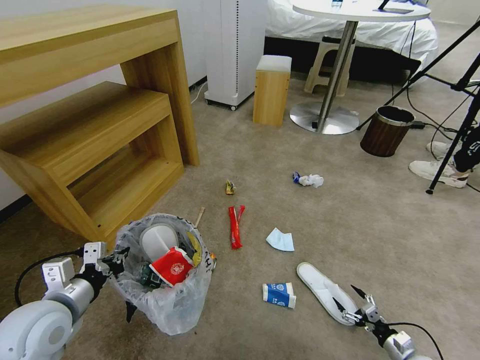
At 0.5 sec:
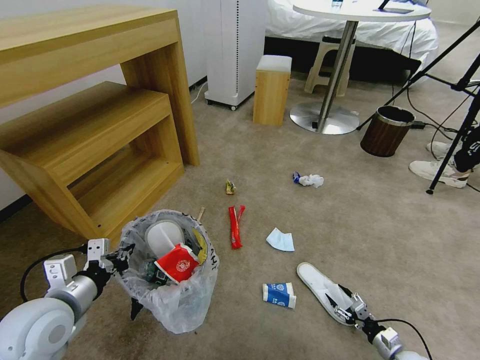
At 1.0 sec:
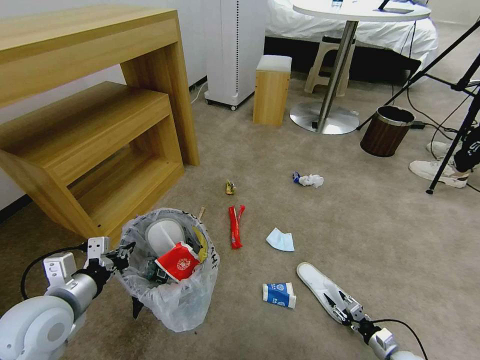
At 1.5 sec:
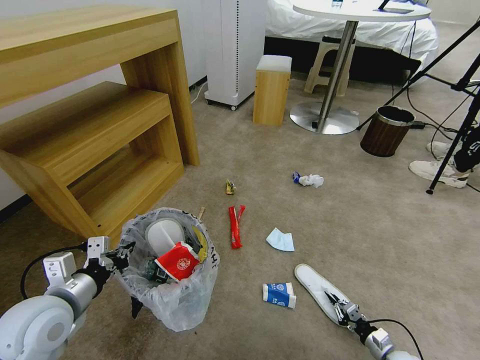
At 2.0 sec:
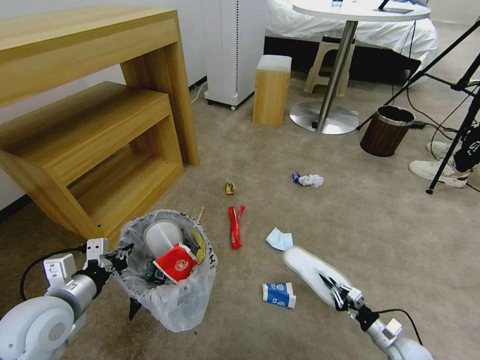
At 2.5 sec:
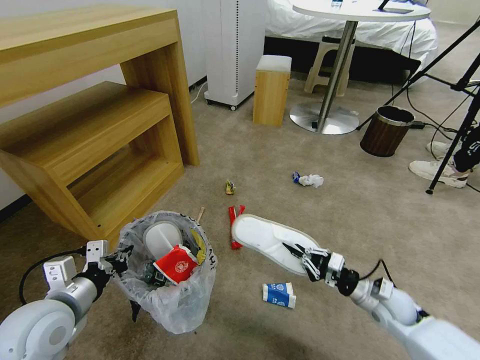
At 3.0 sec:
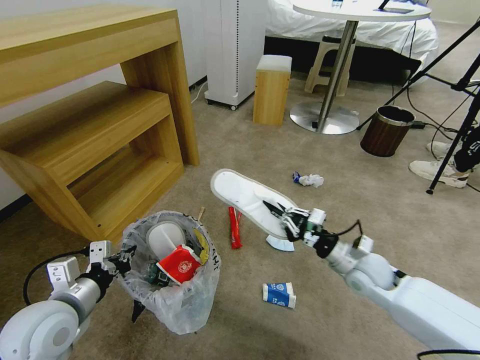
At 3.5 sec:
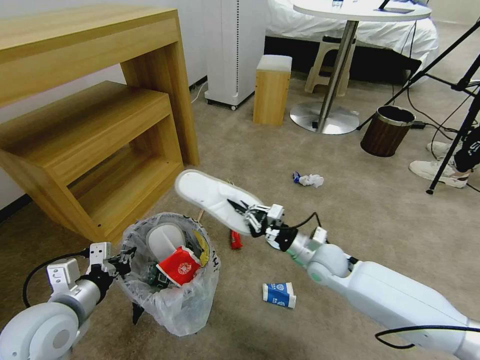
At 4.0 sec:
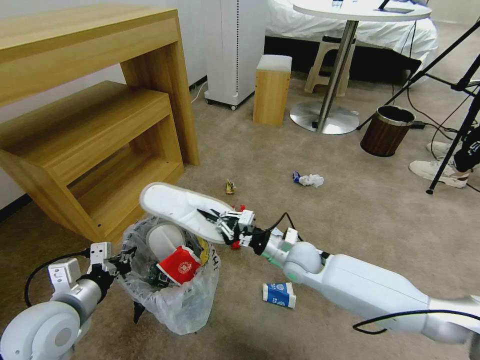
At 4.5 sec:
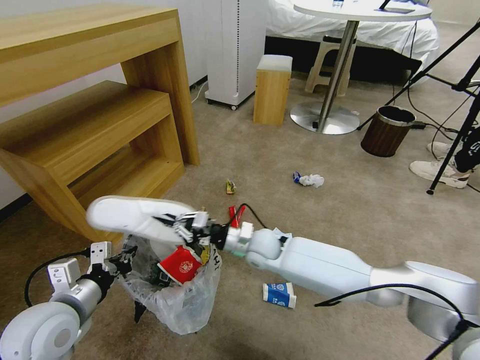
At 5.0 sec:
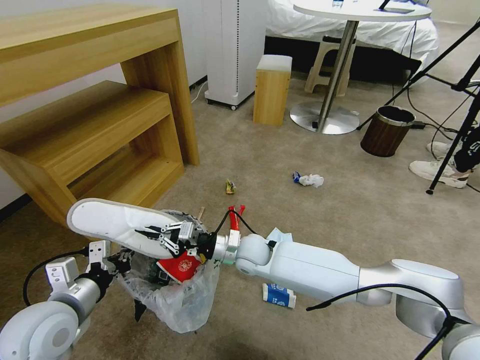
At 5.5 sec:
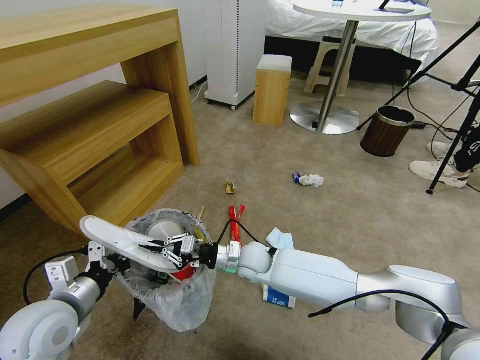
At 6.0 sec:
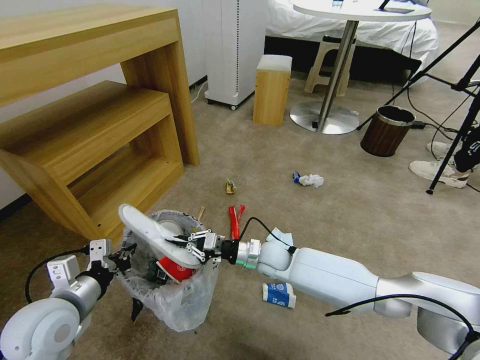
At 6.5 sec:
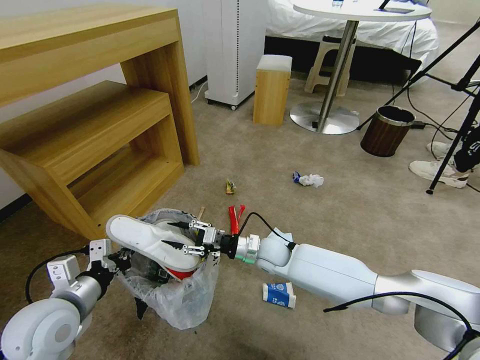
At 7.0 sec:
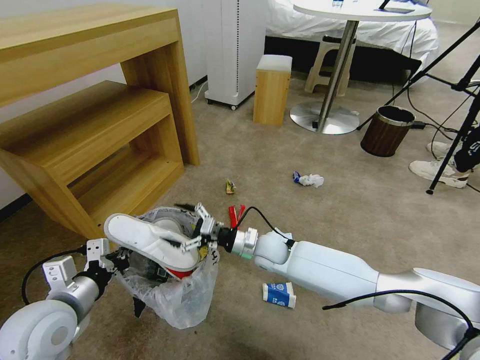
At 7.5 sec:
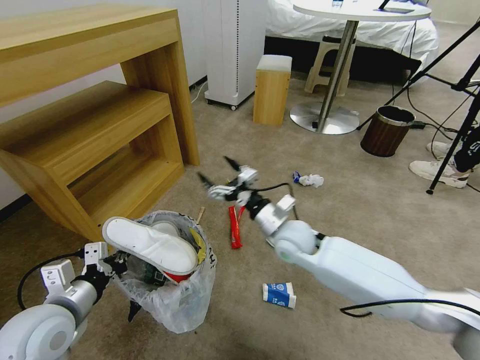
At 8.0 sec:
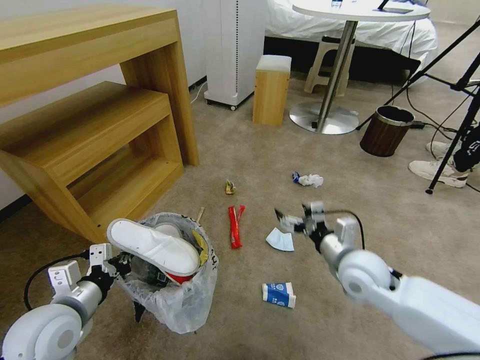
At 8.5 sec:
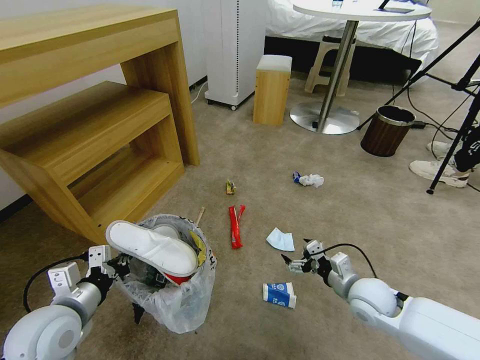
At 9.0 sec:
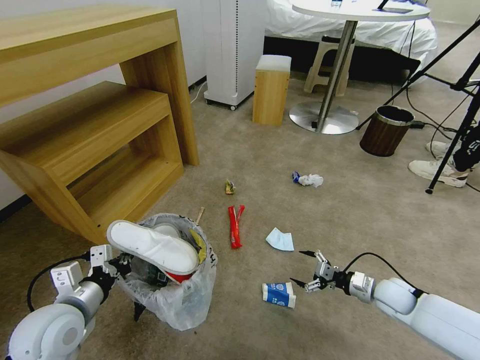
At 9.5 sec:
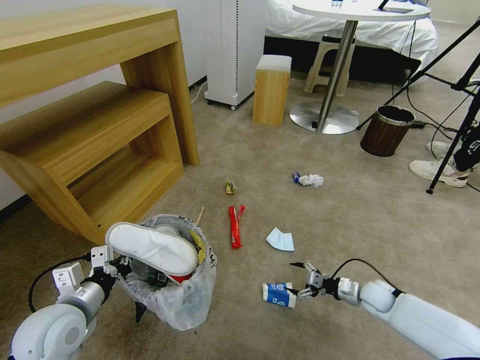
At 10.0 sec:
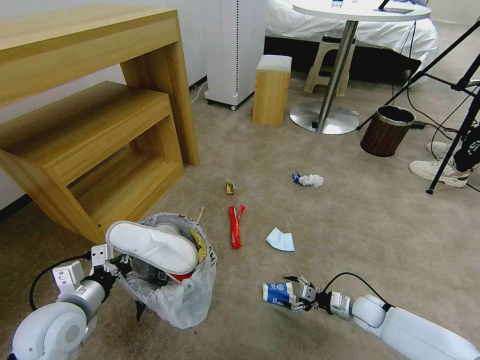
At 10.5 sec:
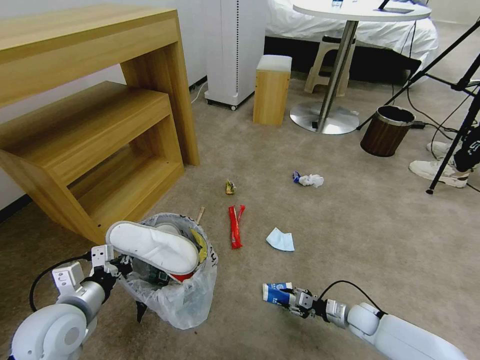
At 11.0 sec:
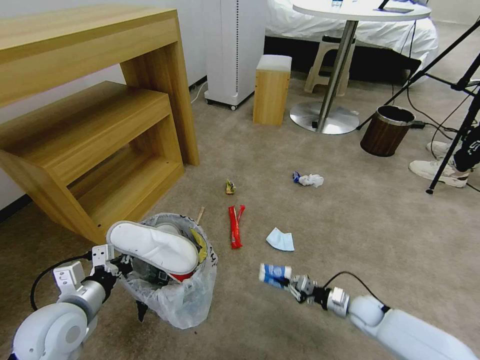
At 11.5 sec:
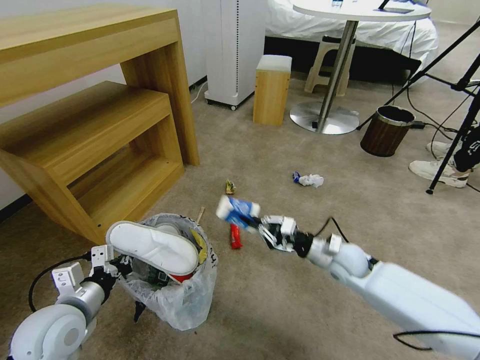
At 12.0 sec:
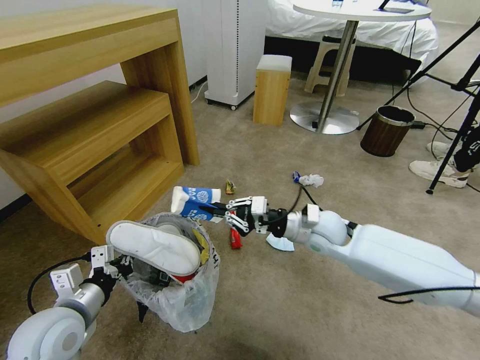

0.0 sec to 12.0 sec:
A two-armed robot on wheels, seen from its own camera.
Task of the whole recording: Pick up the trash bin and place the garbage on the floor into it.
0.0 sec to 2.0 sec: The right gripper shifts roughly 5 cm to the left, and closes its fingers.
2.0 sec to 4.0 sec: The right gripper moves to the left, upward and forward, some 40 cm.
4.0 sec to 6.0 sec: The right gripper goes about 5 cm to the left.
6.0 sec to 8.0 sec: The right gripper heads to the right, upward and backward, covering some 20 cm, and opens its fingers.
8.0 sec to 10.0 sec: The right gripper travels downward and to the right by some 30 cm.
10.0 sec to 12.0 sec: The right gripper goes roughly 30 cm upward and to the left, and closes up.

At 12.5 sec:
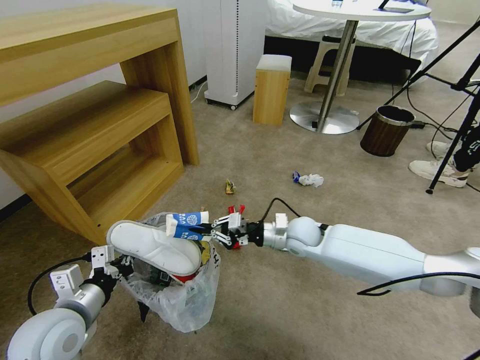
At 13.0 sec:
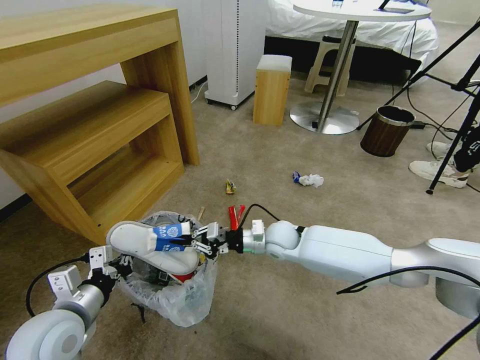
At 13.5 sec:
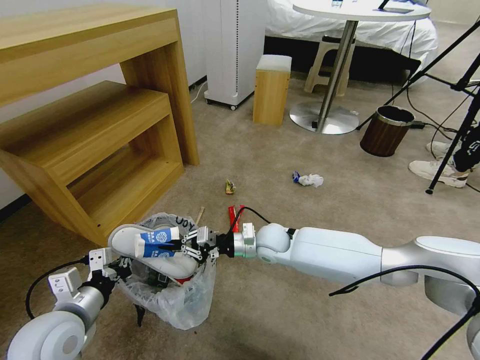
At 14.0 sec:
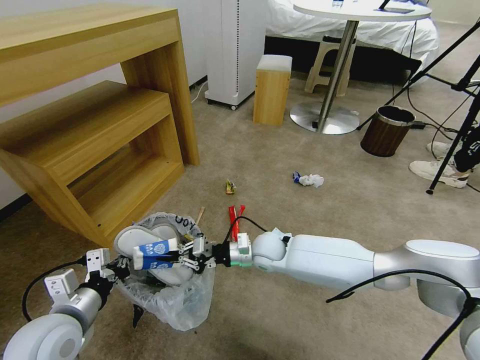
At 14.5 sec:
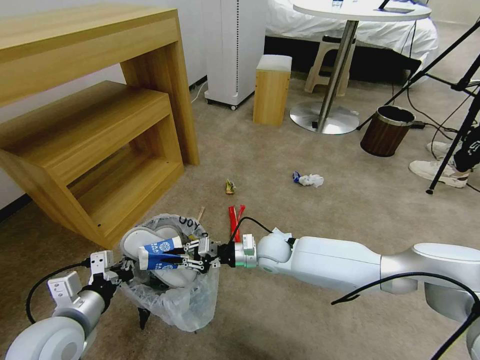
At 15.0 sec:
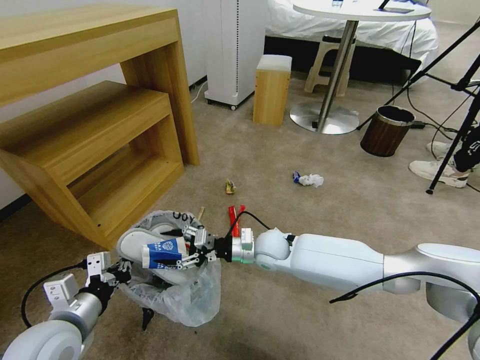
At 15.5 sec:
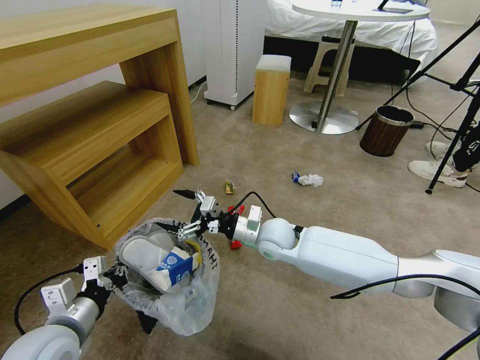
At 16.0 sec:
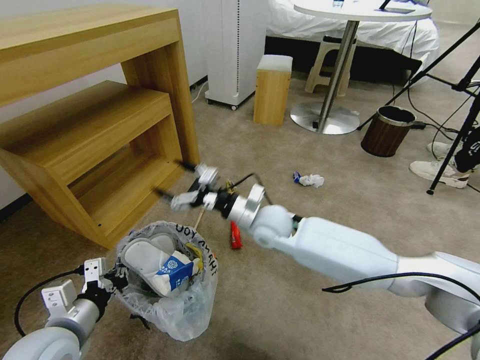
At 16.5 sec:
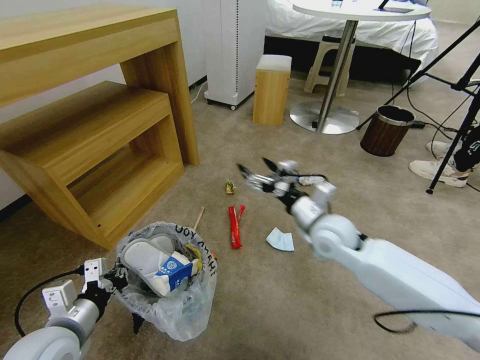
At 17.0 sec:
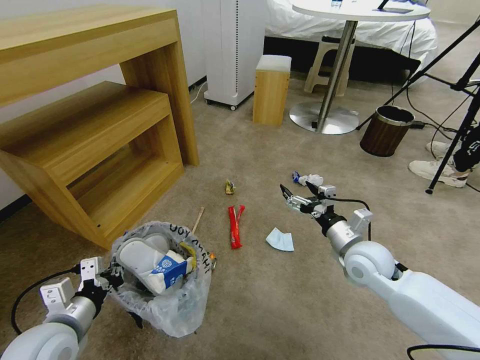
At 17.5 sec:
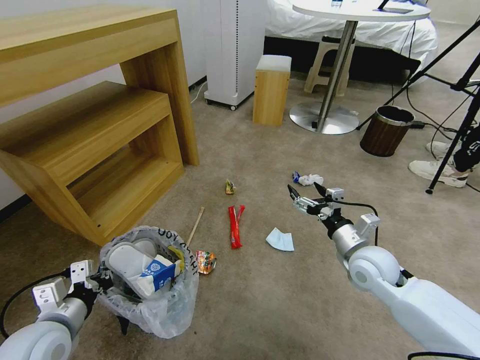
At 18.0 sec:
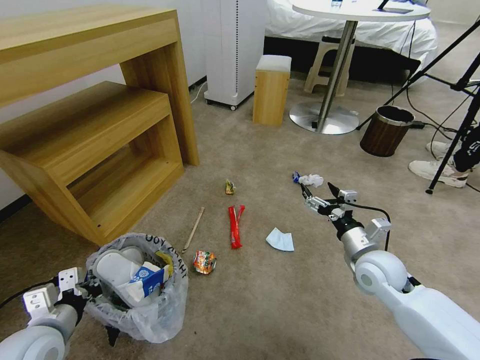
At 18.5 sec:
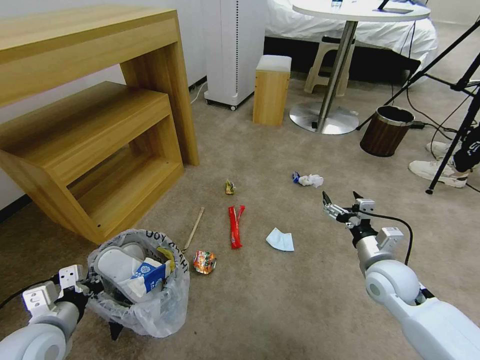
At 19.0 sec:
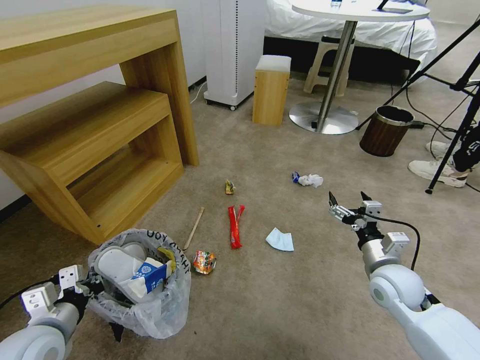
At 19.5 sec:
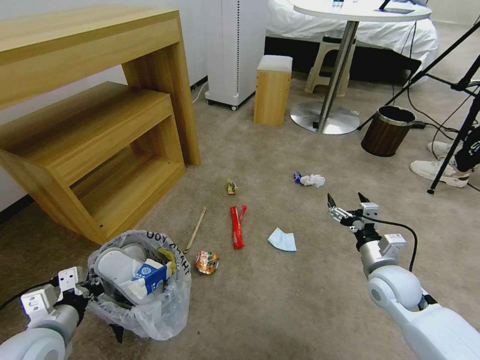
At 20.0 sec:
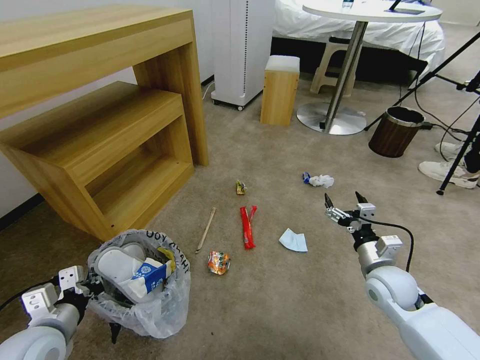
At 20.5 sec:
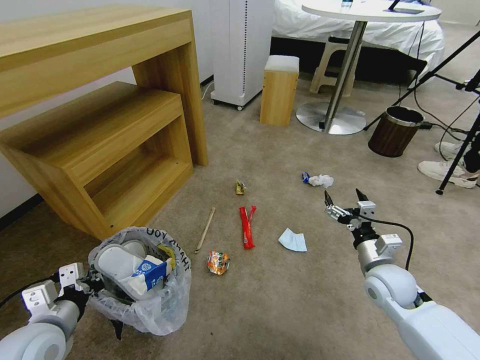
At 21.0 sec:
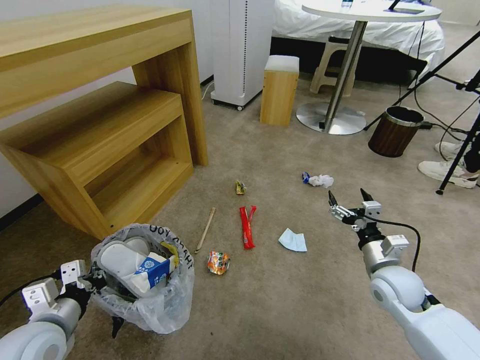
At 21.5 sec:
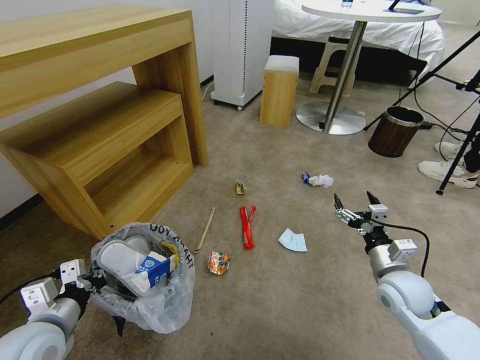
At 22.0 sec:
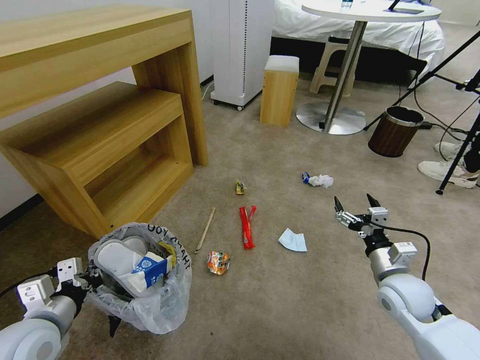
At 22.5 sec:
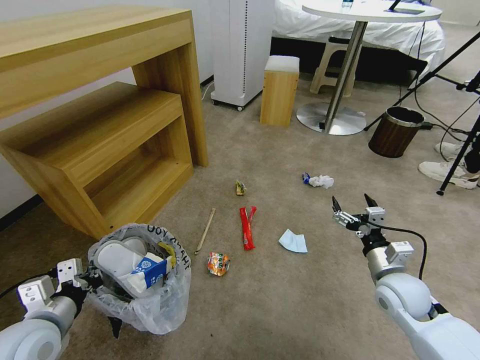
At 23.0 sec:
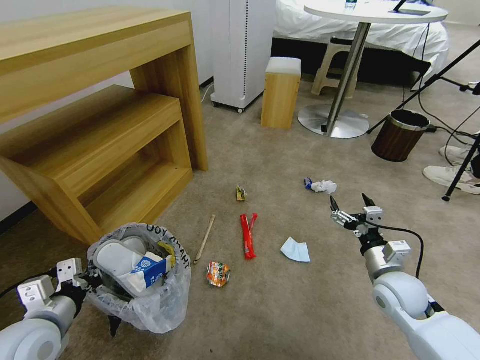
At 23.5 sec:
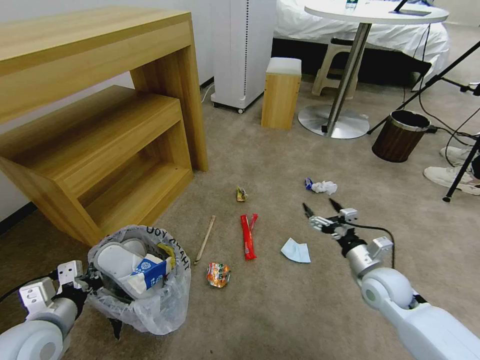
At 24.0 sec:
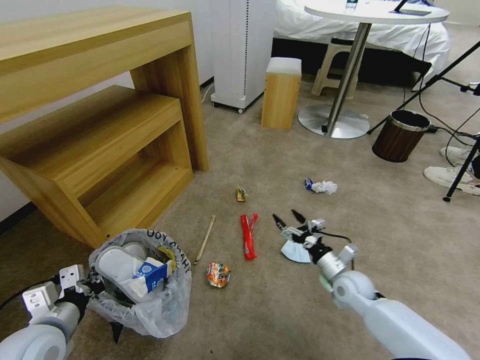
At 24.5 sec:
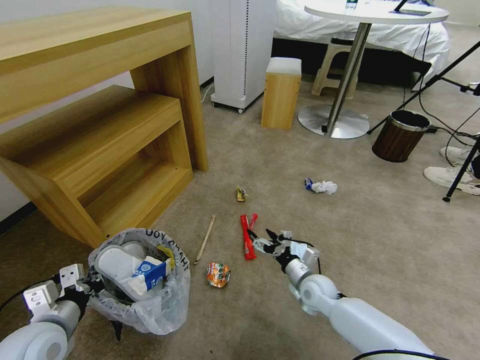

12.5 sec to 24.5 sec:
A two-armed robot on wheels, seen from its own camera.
Task of the whole recording: Pick up the trash bin and place the garbage on the floor into it.
12.5 sec to 14.5 sec: The right gripper moves to the left, about 5 cm.
14.5 sec to 16.5 sec: The right gripper shifts approximately 15 cm upward and to the right, and opens.
16.5 sec to 18.5 sec: The right gripper moves to the right, backward and downward, about 15 cm.
20.5 sec to 22.5 sec: The grippers move only a little.
22.5 sec to 24.5 sec: The right gripper travels to the left, downward and forward by about 20 cm.

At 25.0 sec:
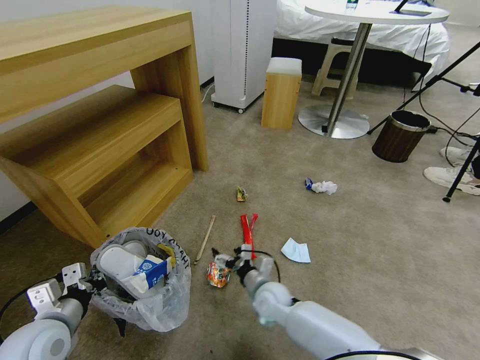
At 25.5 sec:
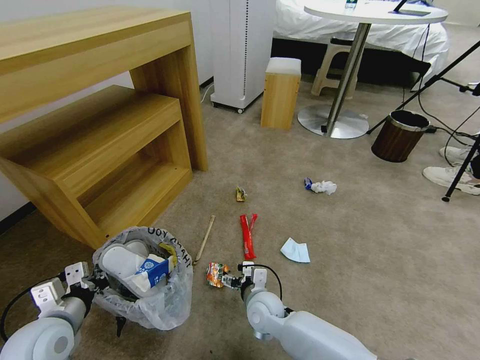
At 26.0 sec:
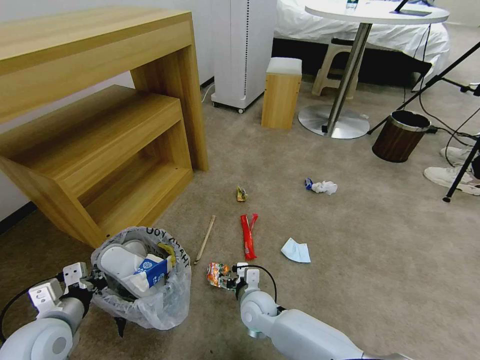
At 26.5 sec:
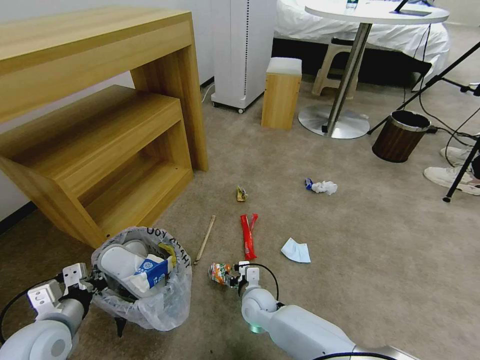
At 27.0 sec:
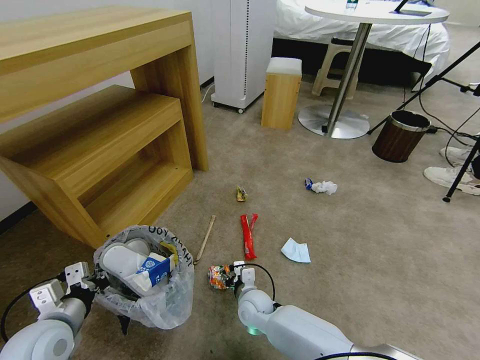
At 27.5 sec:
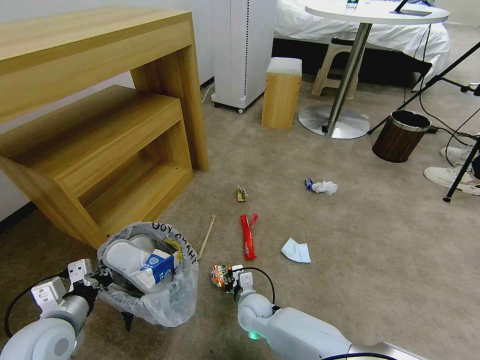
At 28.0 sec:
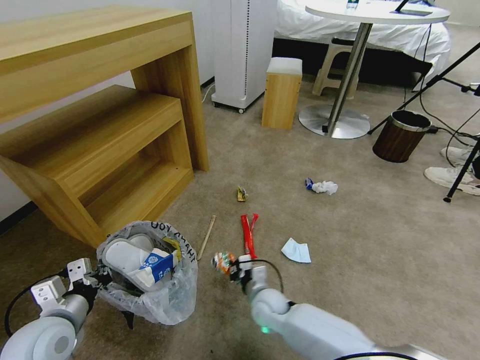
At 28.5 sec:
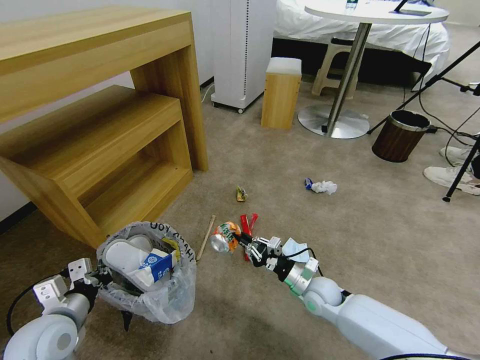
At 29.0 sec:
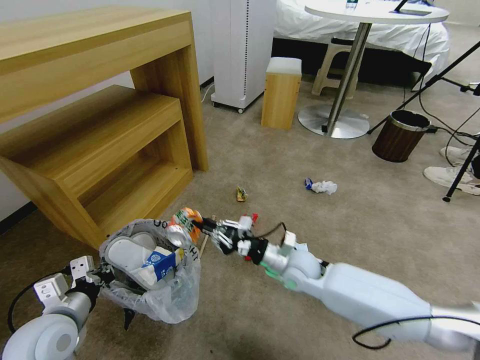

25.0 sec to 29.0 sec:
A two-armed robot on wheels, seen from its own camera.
Task of the whole recording: Pick up the trash bin and place the garbage on the floor into it.
25.0 sec to 27.0 sec: The right gripper changes place by some 5 cm, and closes up.
27.0 sec to 29.0 sec: The right gripper travels upward and to the right by some 15 cm, and closes up.
